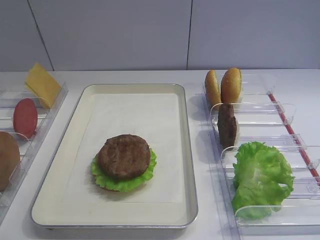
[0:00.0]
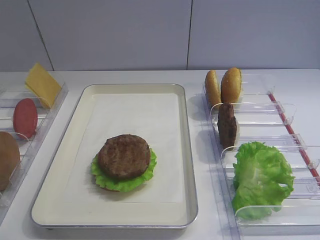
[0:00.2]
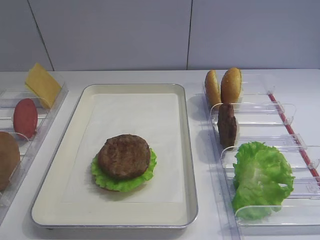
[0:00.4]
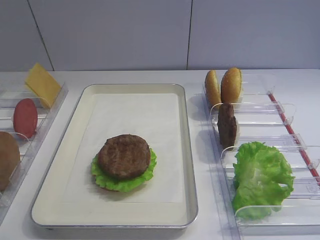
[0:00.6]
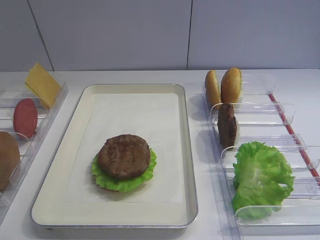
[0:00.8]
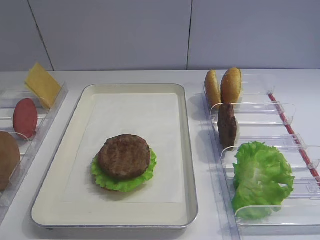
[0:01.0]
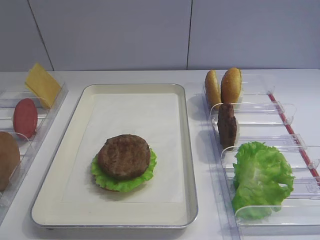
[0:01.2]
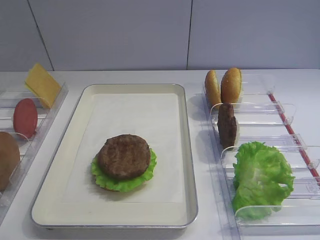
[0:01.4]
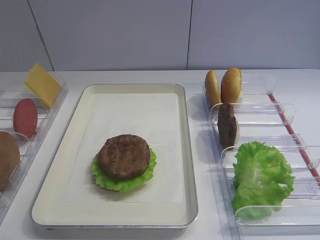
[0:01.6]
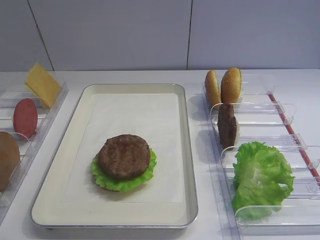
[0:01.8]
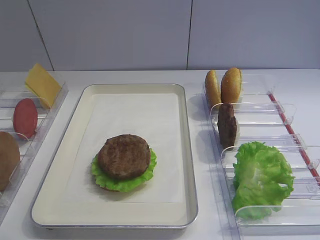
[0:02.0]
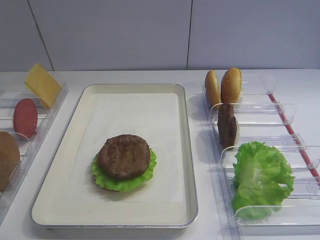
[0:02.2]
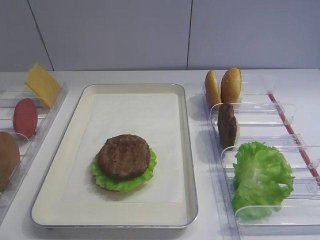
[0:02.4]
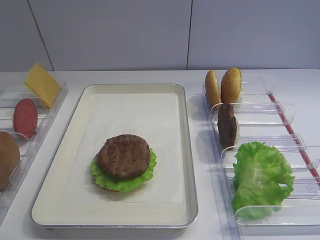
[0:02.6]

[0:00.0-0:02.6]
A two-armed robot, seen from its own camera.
0:00.0 to 0:02.6: Both grippers stay about where they are.

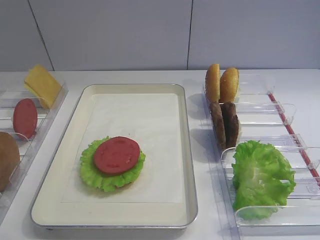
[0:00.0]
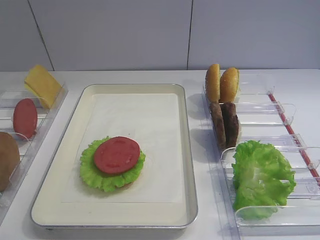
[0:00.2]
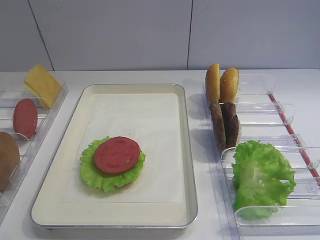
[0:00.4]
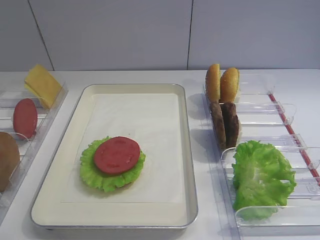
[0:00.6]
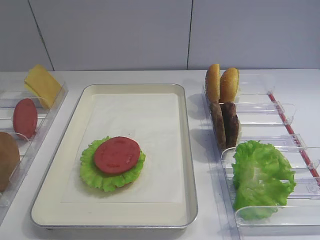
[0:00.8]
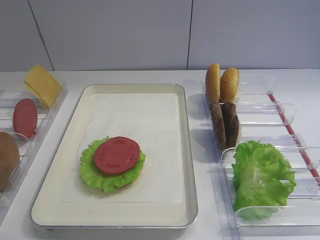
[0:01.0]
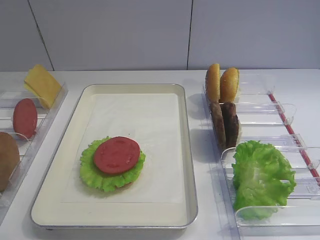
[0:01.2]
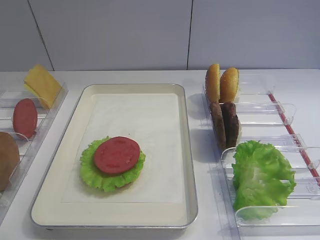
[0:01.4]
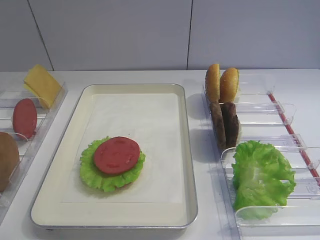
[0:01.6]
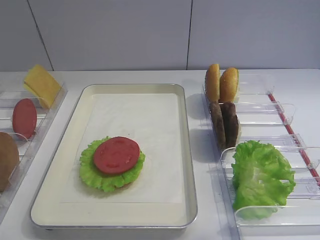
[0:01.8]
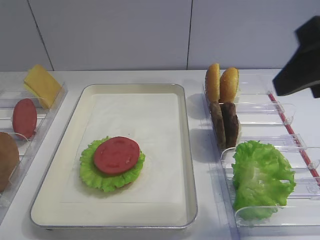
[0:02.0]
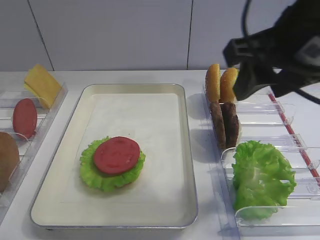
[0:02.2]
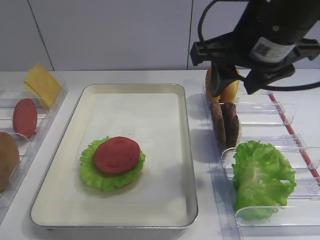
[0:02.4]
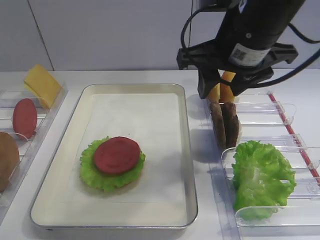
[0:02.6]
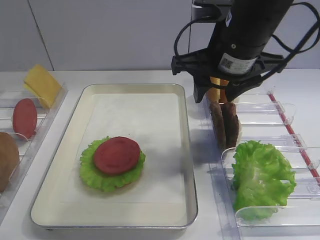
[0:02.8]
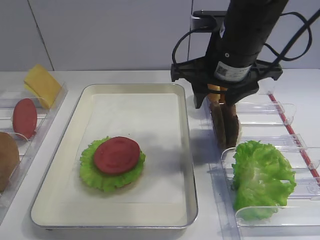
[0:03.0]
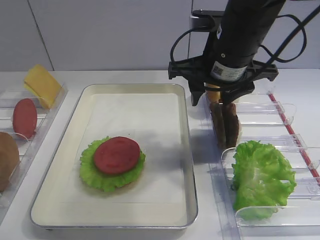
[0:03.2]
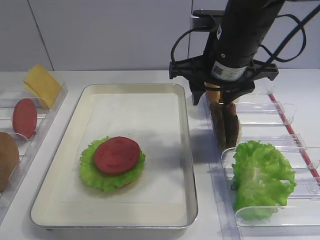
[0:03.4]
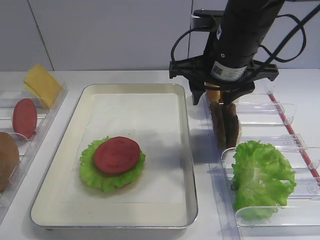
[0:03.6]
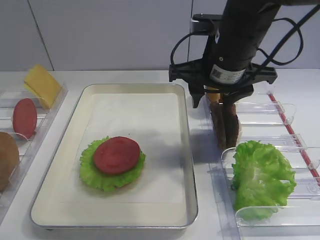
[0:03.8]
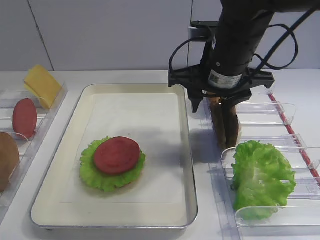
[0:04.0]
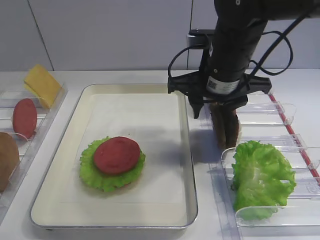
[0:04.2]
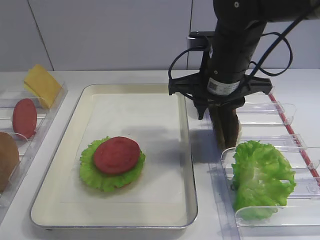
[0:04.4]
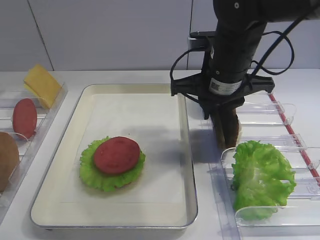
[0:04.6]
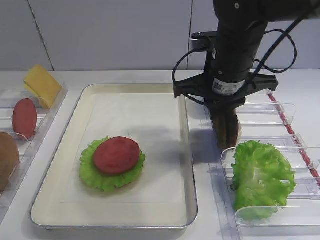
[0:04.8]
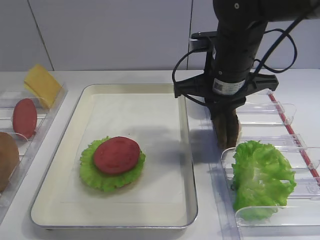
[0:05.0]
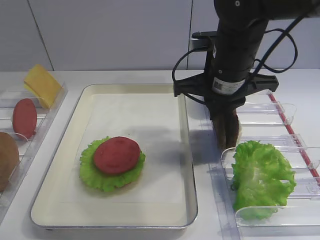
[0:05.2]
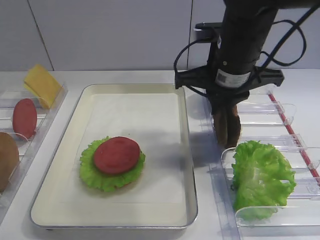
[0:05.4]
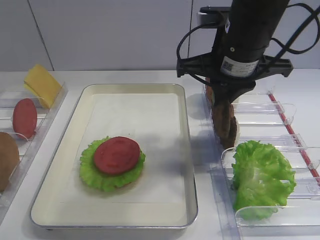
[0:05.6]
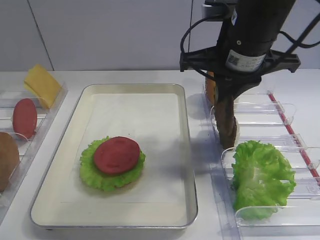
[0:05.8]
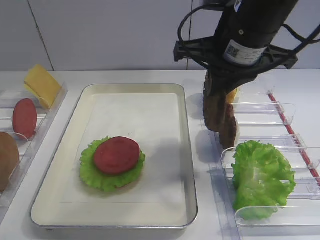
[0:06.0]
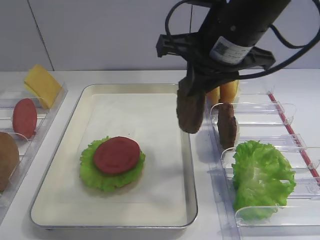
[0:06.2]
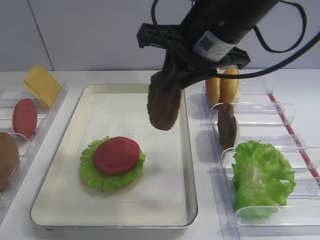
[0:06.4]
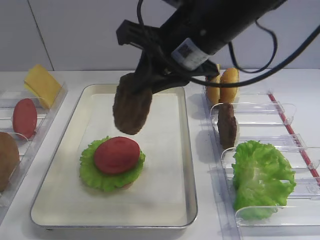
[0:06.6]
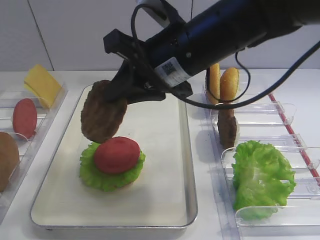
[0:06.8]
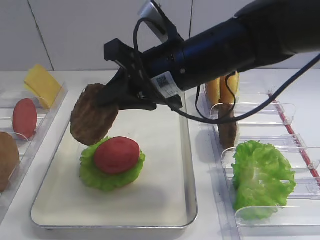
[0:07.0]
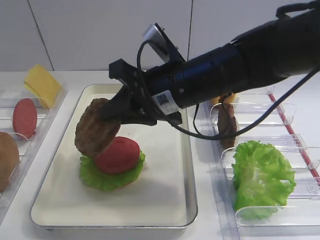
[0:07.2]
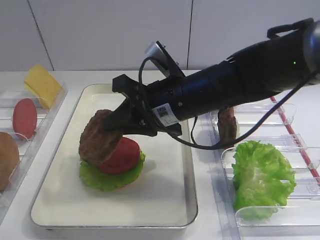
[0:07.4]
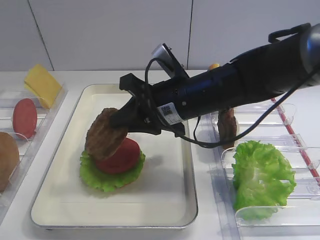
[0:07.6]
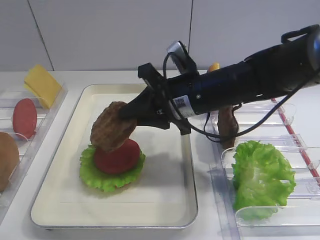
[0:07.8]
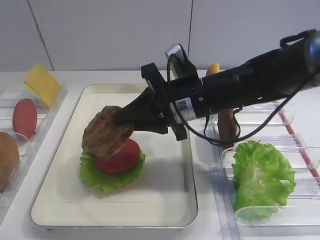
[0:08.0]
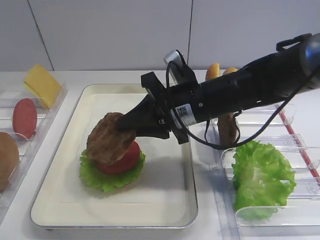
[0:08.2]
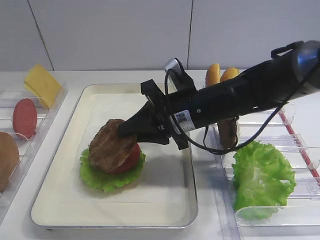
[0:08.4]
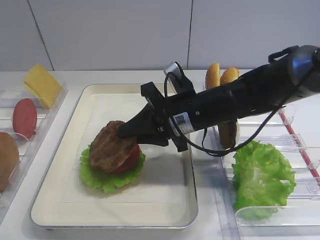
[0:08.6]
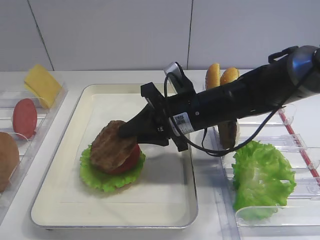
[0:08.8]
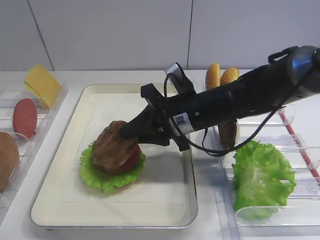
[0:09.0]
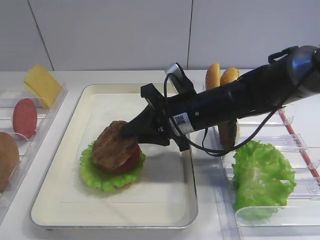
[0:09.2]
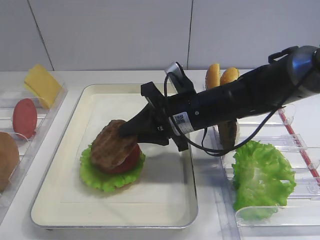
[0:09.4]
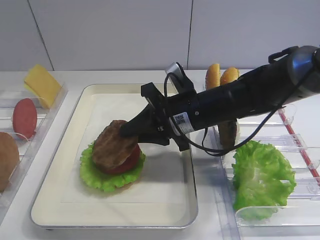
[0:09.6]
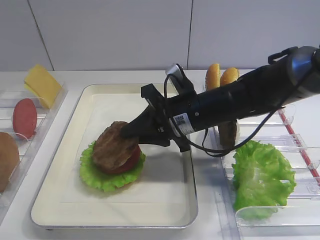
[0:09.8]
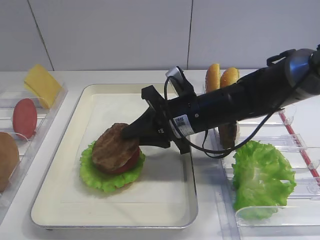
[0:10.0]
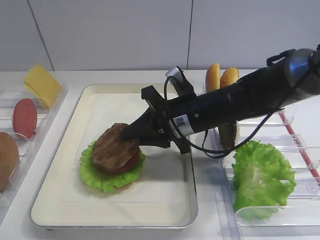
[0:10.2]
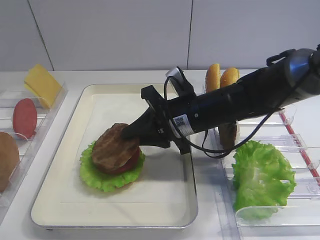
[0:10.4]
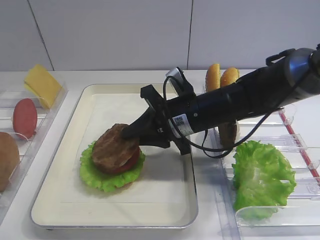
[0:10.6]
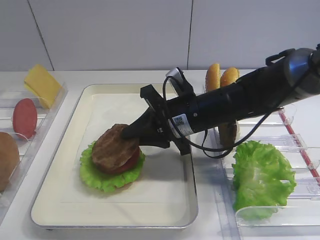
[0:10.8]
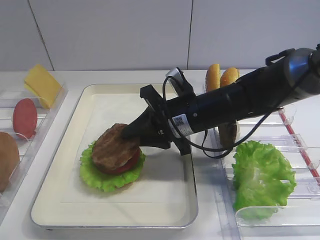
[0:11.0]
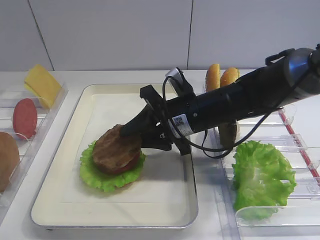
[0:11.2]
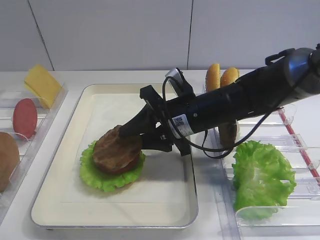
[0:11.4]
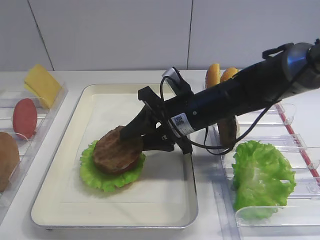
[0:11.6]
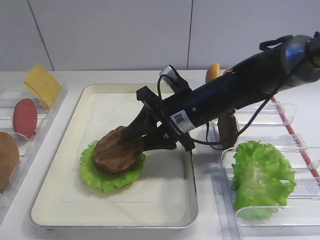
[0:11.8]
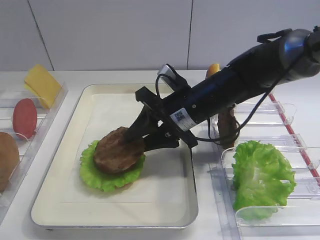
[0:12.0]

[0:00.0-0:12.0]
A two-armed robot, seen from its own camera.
Step, 0:00.0 to 0:05.8: Pick up the cutlet with the right gripper.
0:01.6 to 0:03.0: The right gripper heads forward and to the left, covering approximately 25 cm.
0:03.0 to 0:04.4: The right gripper closes up.
0:04.4 to 0:06.0: The right gripper heads upward, covering approximately 5 cm, and closes up.
0:06.0 to 0:07.6: The right gripper is displaced downward and to the left by approximately 10 cm.
0:07.6 to 0:09.0: The grippers move only a little.
0:09.0 to 0:10.4: Both grippers stay about where they are.
0:10.4 to 0:12.0: The right gripper opens.

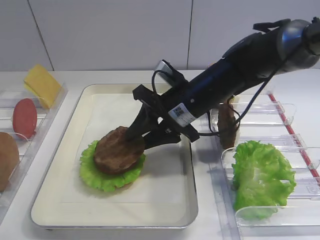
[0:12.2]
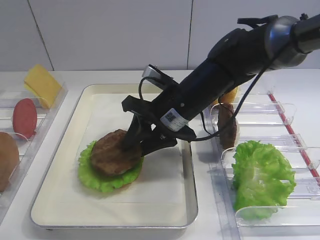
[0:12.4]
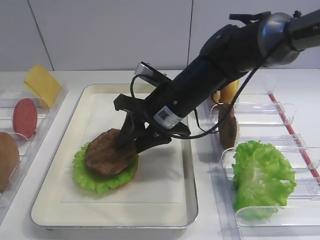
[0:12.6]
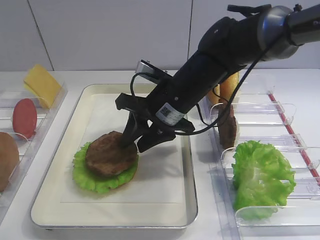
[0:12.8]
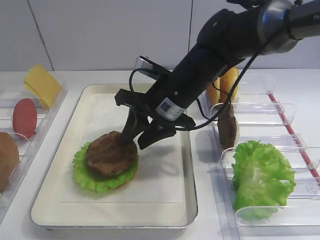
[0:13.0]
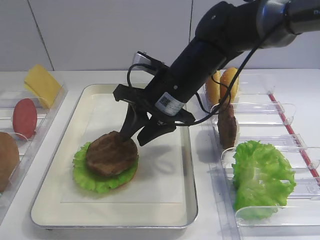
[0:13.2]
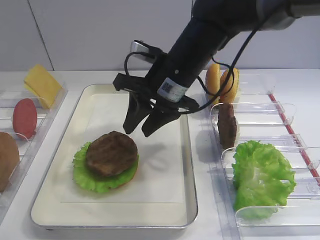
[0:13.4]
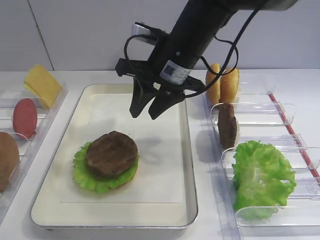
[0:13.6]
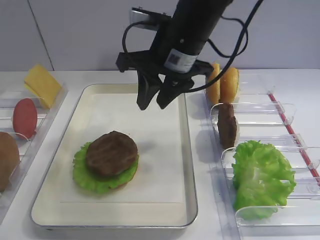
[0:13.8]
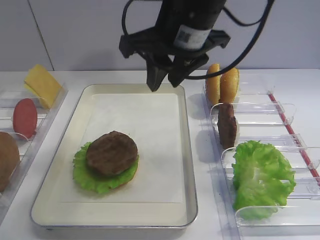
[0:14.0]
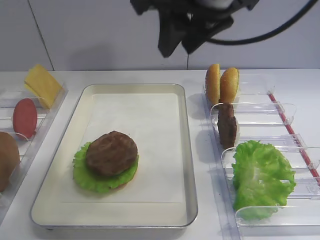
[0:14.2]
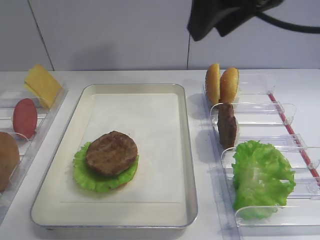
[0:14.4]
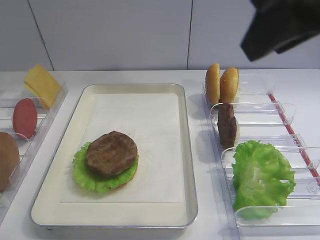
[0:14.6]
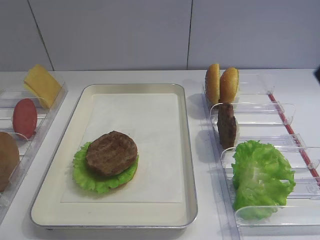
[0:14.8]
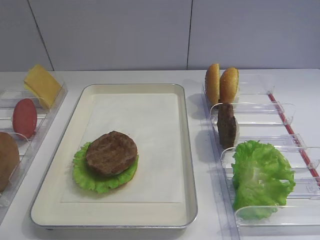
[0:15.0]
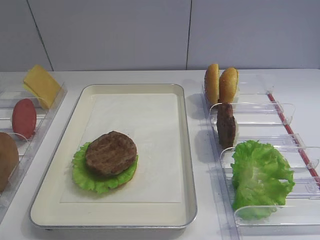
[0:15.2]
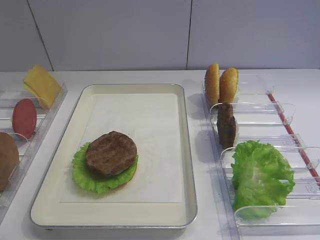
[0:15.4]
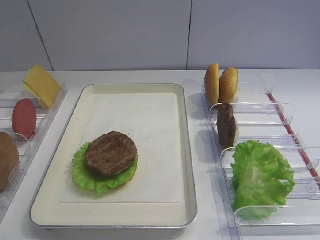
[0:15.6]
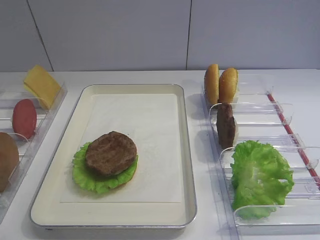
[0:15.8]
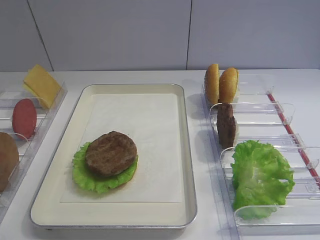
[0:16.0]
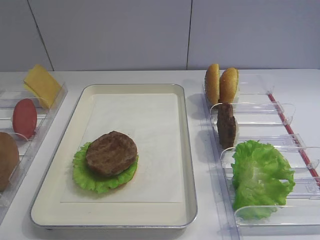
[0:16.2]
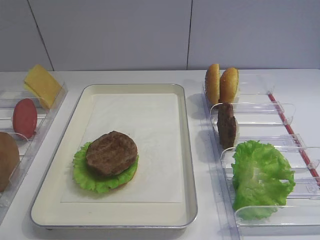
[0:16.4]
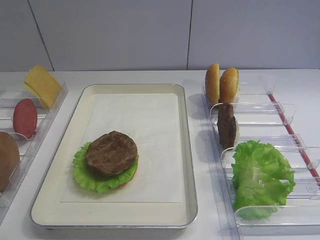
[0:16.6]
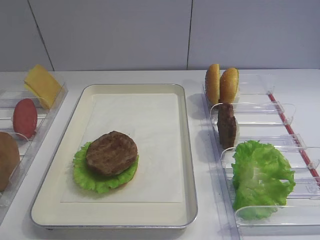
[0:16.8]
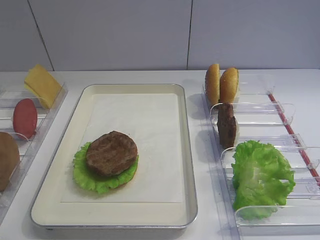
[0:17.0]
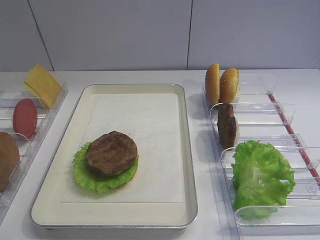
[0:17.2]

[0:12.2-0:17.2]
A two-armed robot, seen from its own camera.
0:12.2 to 0:13.8: The right gripper shifts about 10 cm upward.
0:13.8 to 0:15.6: The right gripper goes roughly 40 cm backward and to the right.

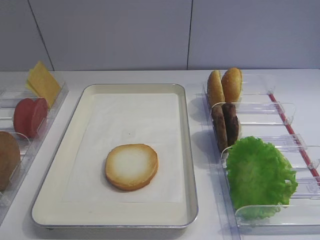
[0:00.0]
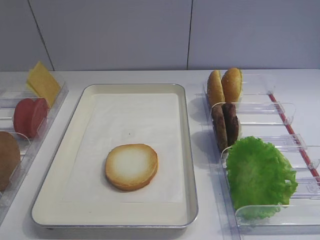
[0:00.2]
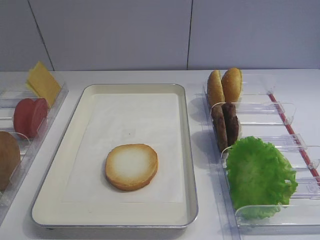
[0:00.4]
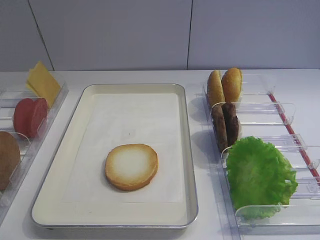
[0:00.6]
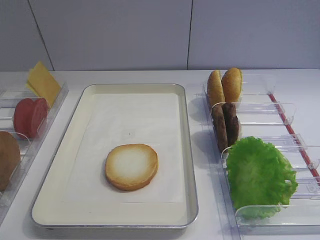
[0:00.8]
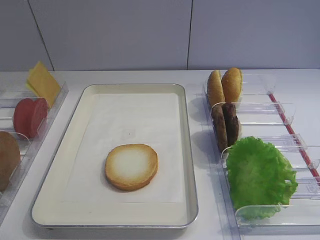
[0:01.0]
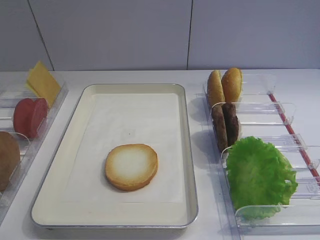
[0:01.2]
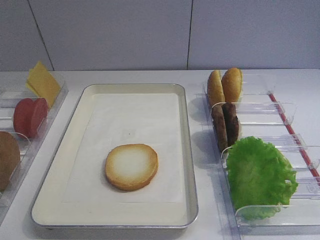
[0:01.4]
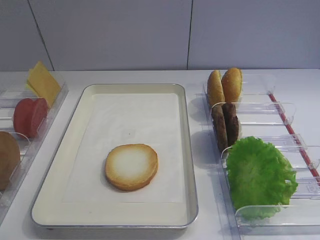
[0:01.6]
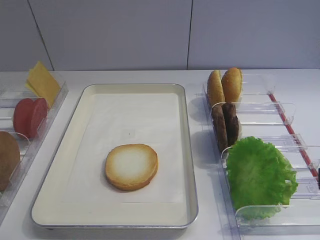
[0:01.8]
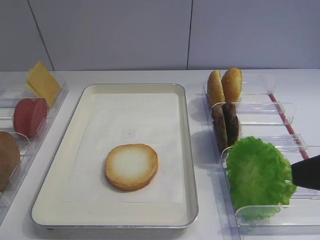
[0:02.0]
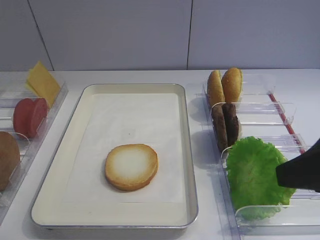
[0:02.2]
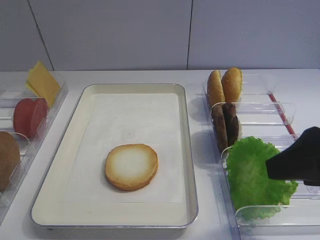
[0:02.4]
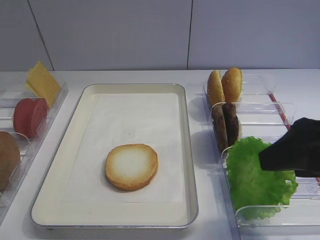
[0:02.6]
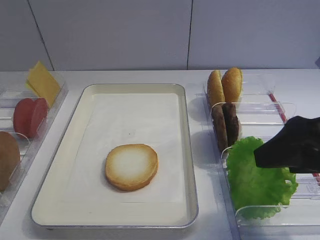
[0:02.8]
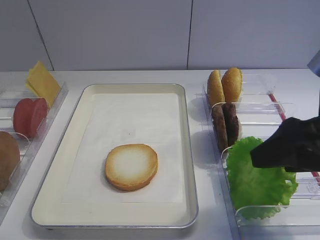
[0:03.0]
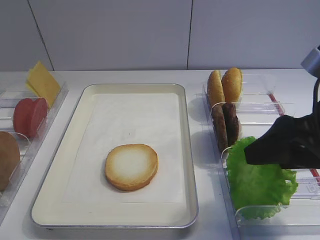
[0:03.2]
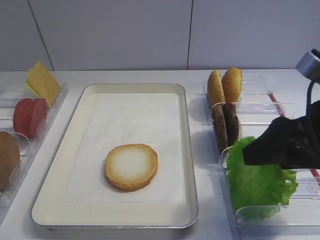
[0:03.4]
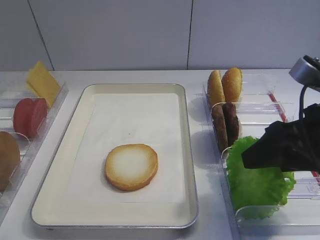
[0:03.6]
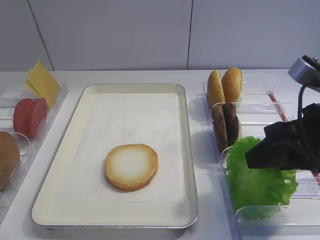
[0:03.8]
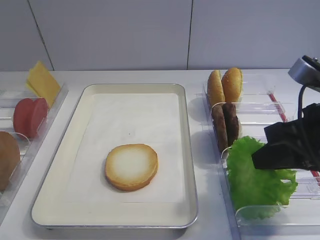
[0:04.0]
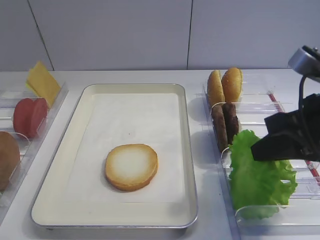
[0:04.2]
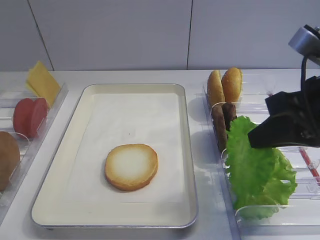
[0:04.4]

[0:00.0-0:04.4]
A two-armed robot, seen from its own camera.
0:01.4 to 0:03.0: The right gripper goes roughly 15 cm forward.
0:03.0 to 0:04.4: The right gripper closes up.
